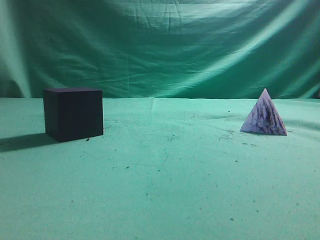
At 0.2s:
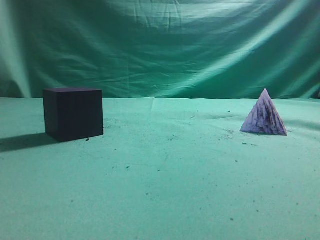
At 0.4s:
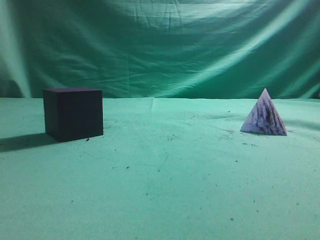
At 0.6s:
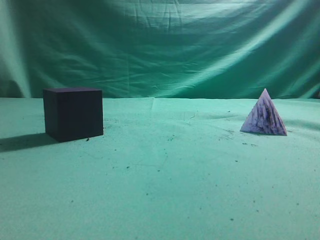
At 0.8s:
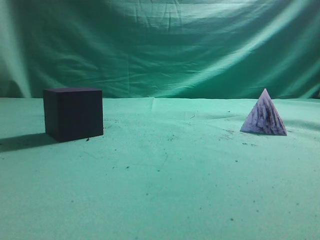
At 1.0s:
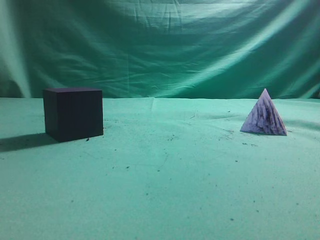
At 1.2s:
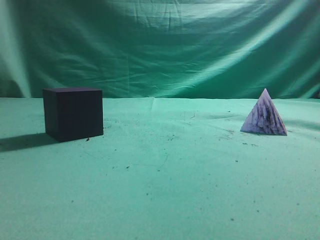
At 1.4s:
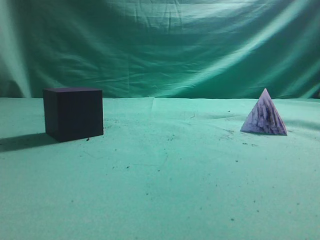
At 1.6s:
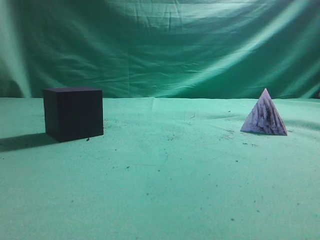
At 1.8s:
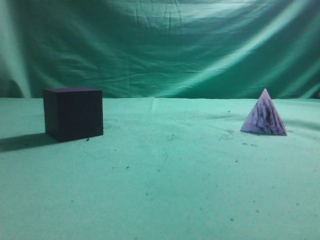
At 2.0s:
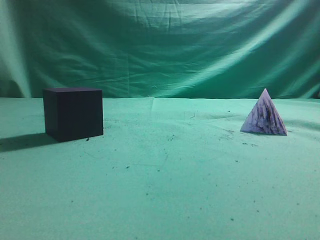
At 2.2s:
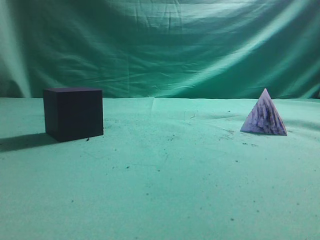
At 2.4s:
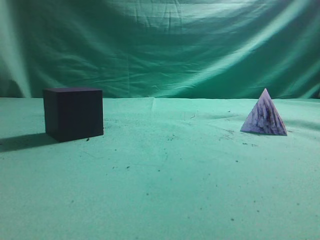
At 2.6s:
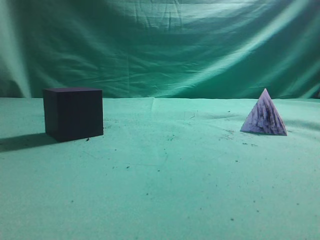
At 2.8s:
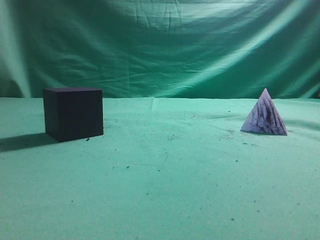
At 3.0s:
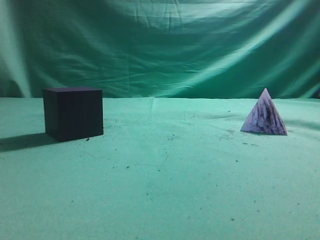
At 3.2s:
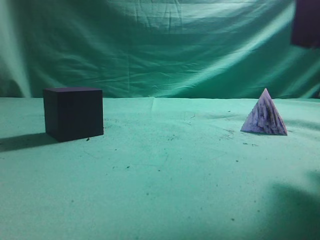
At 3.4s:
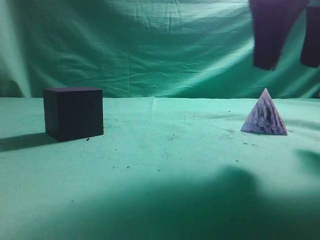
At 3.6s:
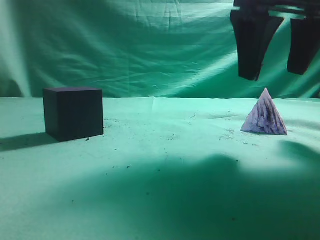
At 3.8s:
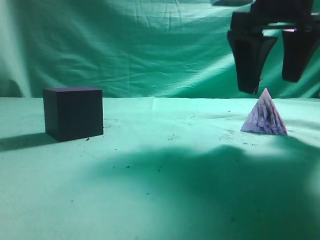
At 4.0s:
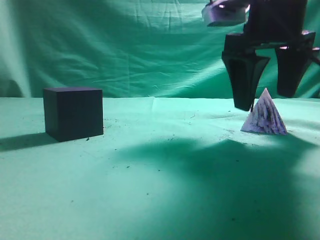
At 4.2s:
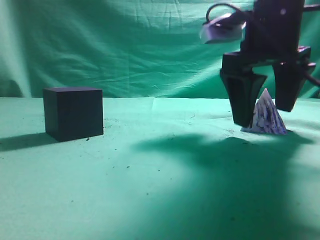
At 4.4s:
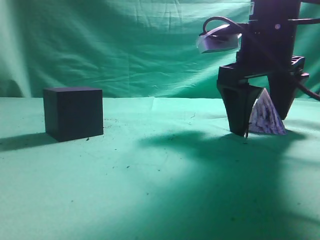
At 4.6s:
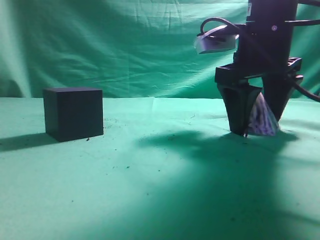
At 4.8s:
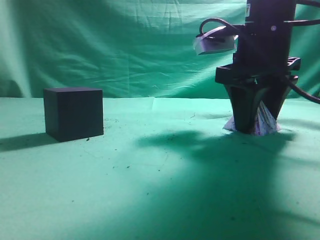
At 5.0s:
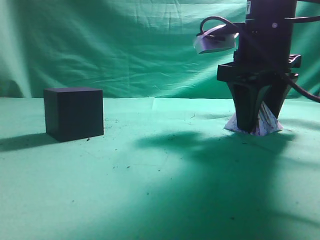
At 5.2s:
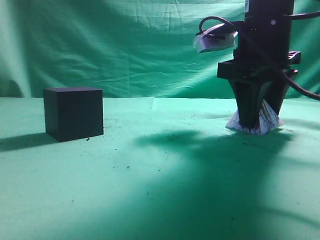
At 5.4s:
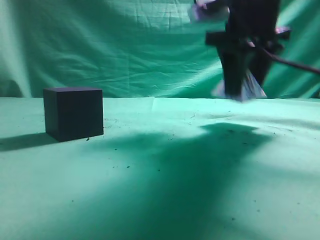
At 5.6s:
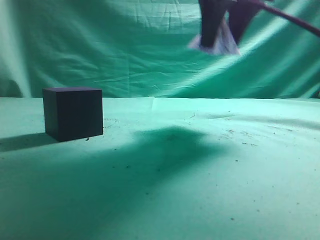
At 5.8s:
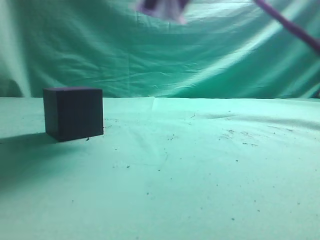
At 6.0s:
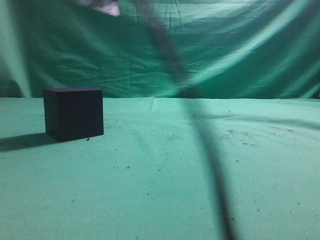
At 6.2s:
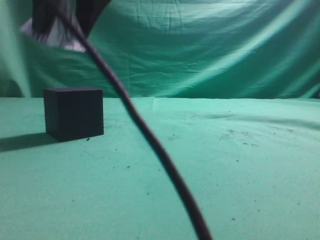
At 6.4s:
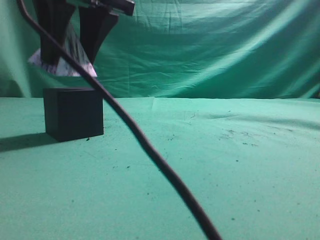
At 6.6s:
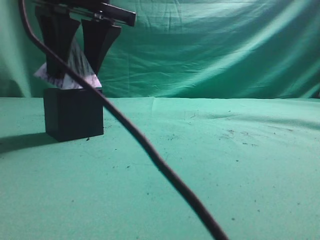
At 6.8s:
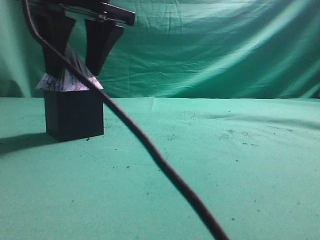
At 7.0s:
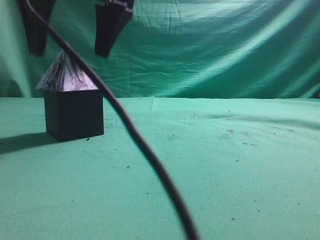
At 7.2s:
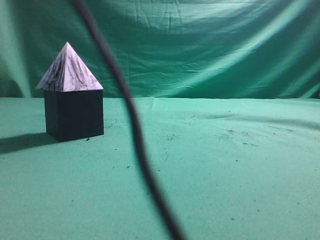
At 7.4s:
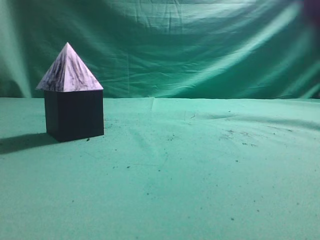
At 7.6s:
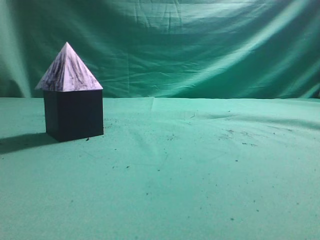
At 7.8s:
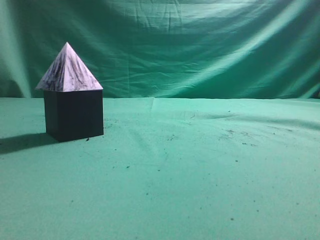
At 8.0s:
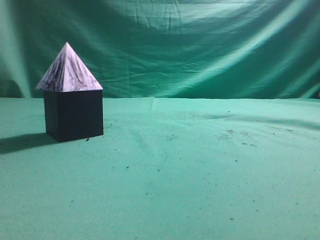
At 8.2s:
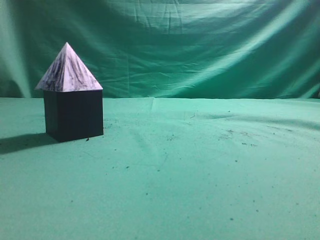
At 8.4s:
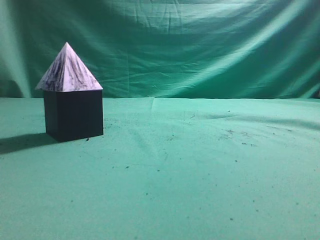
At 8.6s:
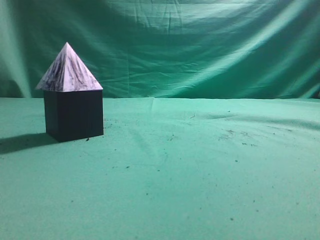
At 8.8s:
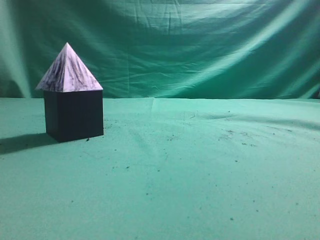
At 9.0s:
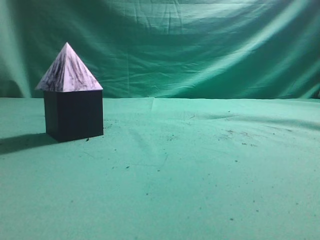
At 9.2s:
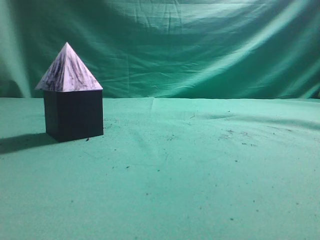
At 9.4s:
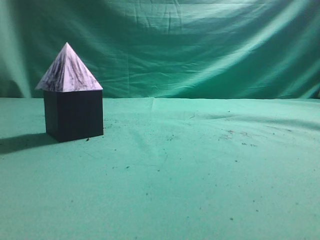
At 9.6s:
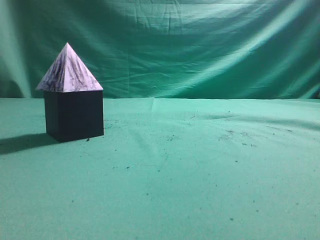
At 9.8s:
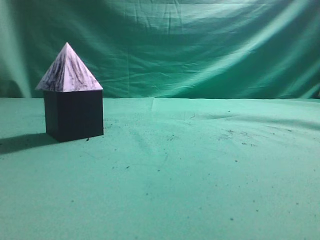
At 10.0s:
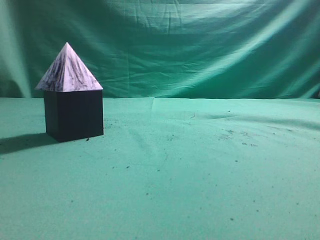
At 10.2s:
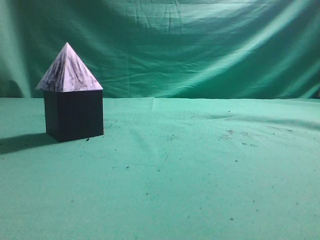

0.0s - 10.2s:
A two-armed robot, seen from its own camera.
Task of the whole recording: pick up the square pyramid from the table and place it on the cube block.
Step, 0.0s - 5.4s: Grasp the triangular block.
Step, 5.6s - 7.0s: Place the block onto the cube-shaped block.
3.0s - 4.4s: The right gripper heads forward and downward, covering some 15 cm, and opens its fingers.
4.4s - 5.8s: The right gripper shifts approximately 20 cm upward and to the left, and closes up.
5.8s - 7.2s: The right gripper shifts roughly 10 cm upward, and closes.
7.2s - 8.8s: The right gripper moves to the right and backward, approximately 35 cm.
